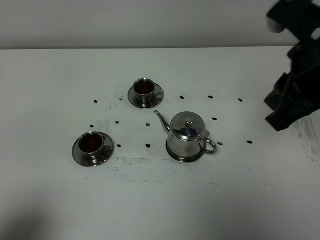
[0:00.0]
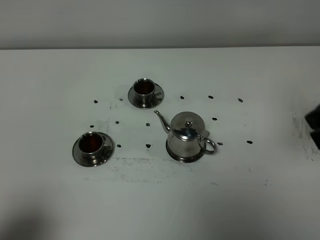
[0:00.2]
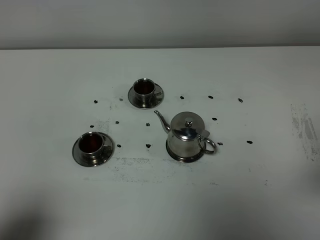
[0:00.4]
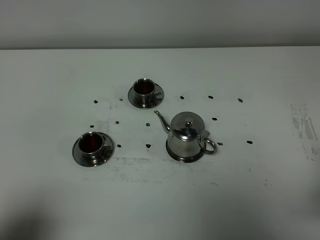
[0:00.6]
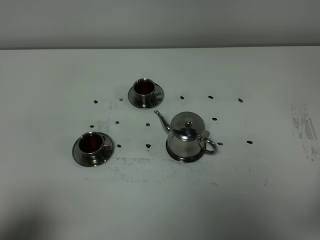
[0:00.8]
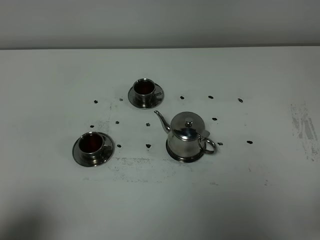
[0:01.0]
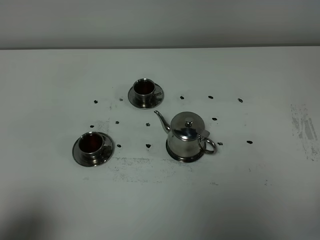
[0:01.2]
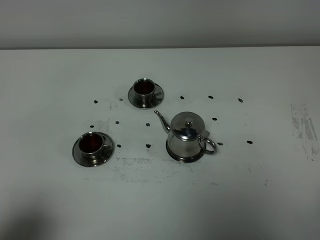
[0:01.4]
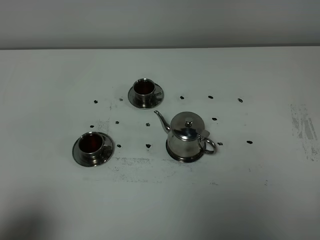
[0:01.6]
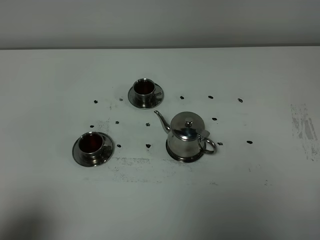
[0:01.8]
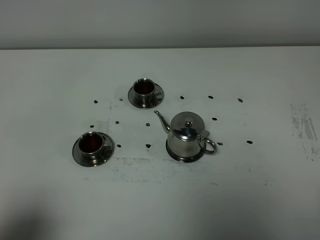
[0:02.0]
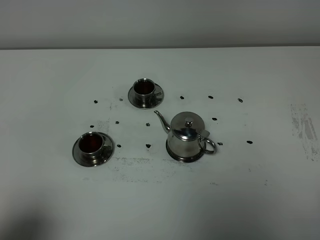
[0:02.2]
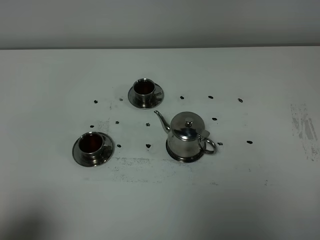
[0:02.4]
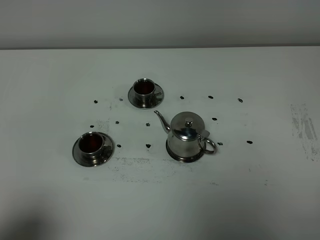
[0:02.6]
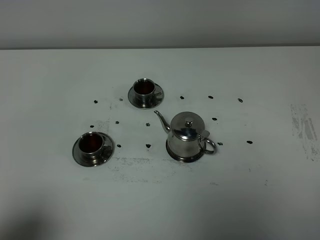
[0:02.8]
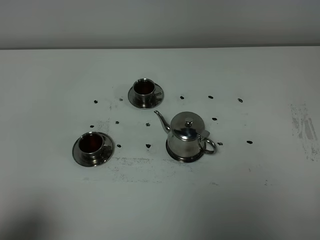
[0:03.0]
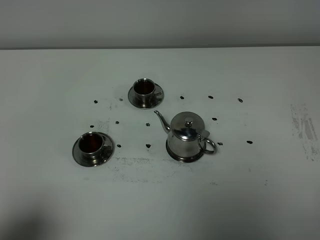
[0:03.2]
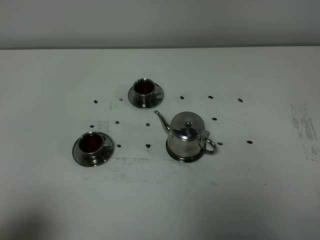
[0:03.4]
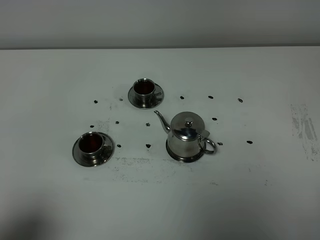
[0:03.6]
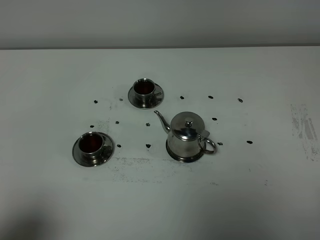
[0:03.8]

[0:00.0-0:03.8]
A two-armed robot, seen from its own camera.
Task of the whole recording: grasp the stainless steel teapot and pour the tea into the two stainless steel teacups one by one, put the stainless steel teapot back in its original place.
0:00.0 to 0:01.2: The right gripper heads backward, downward and to the right, covering about 25 cm.
0:02.6 to 0:03.8: The two grippers keep their place.
